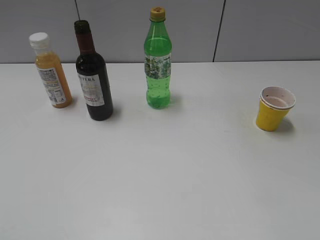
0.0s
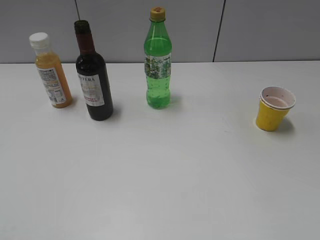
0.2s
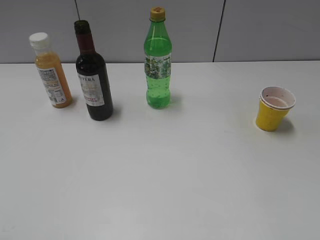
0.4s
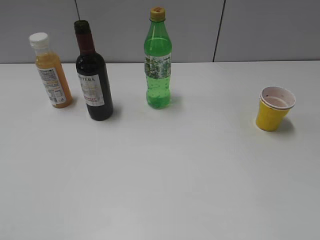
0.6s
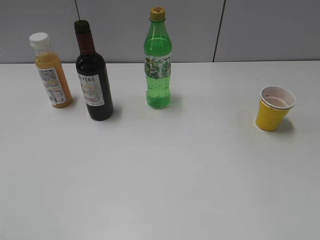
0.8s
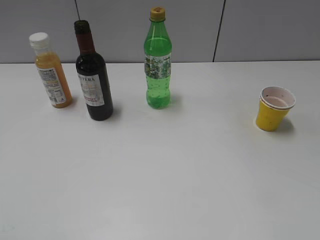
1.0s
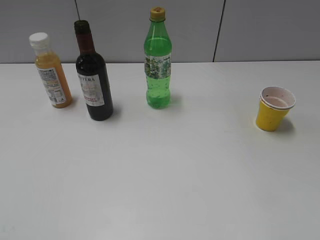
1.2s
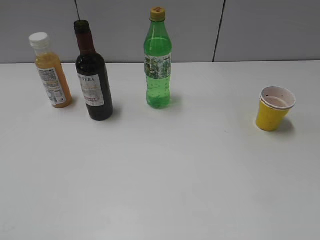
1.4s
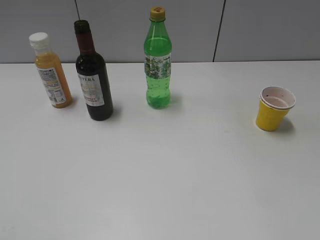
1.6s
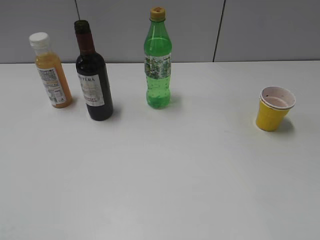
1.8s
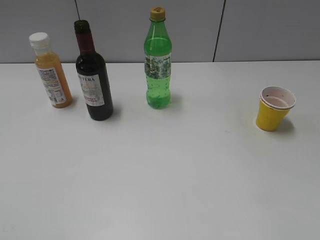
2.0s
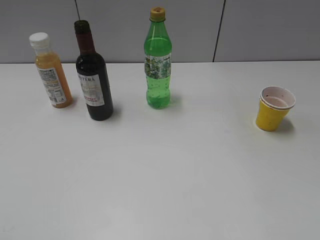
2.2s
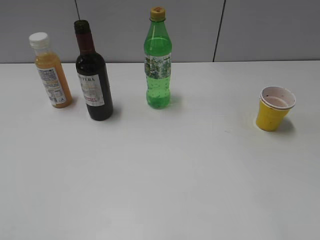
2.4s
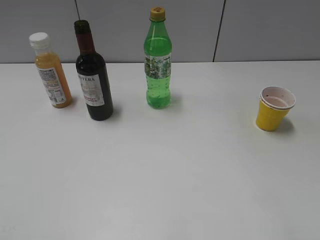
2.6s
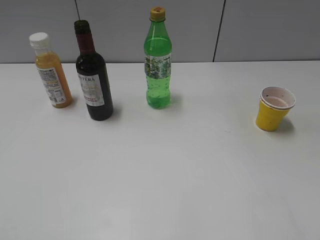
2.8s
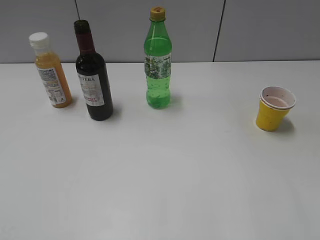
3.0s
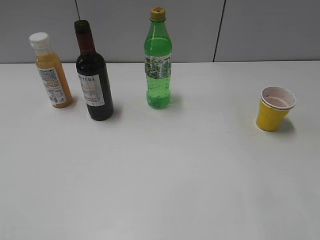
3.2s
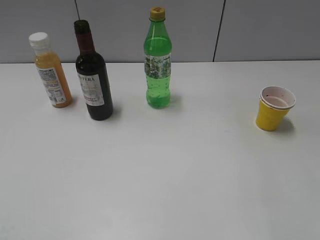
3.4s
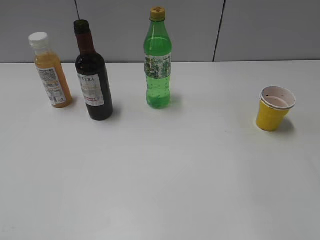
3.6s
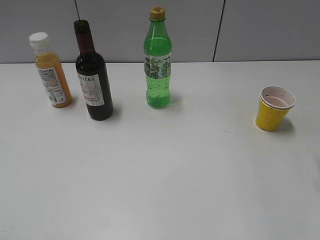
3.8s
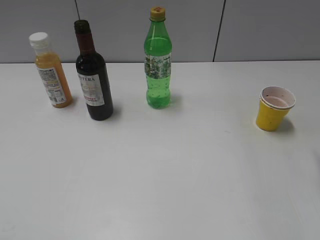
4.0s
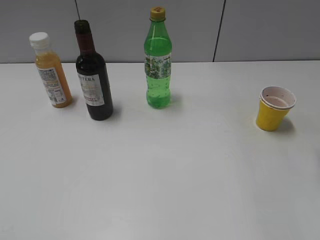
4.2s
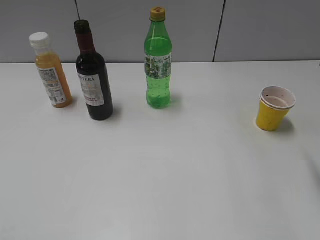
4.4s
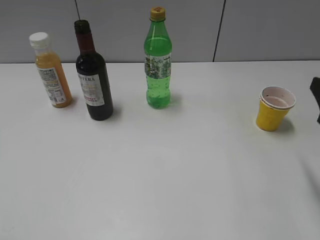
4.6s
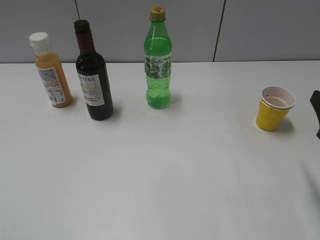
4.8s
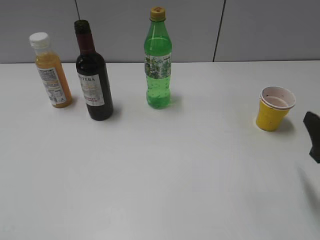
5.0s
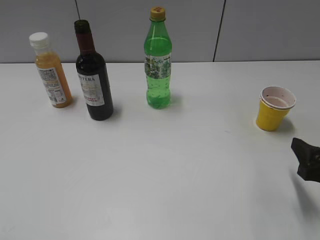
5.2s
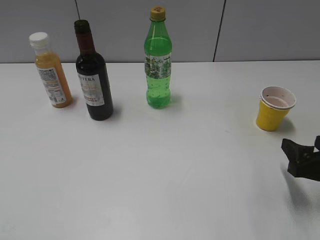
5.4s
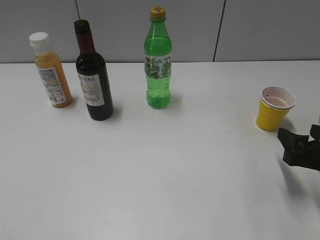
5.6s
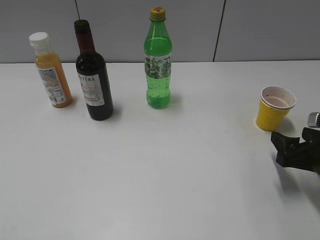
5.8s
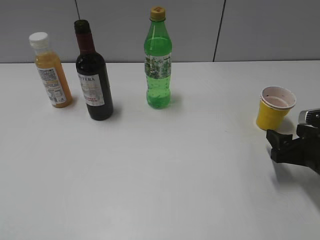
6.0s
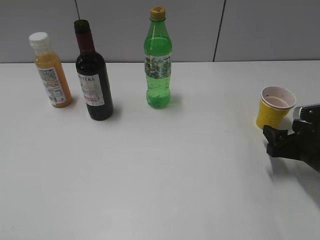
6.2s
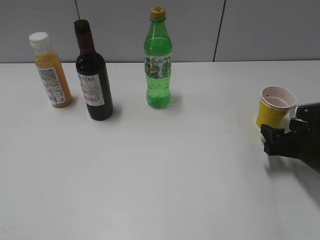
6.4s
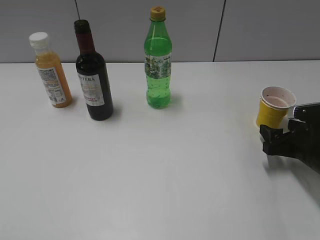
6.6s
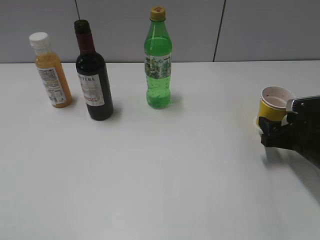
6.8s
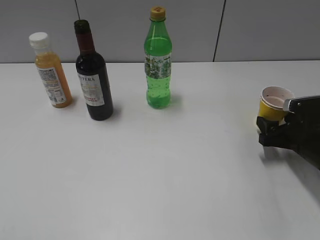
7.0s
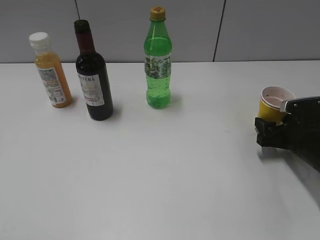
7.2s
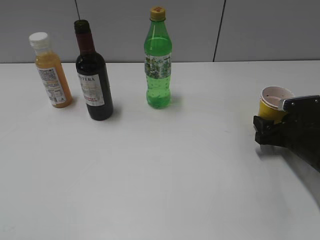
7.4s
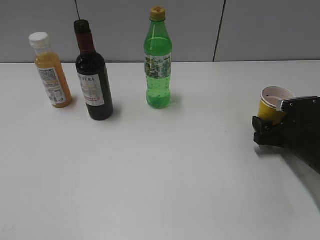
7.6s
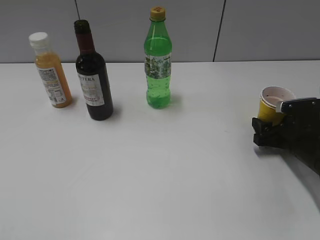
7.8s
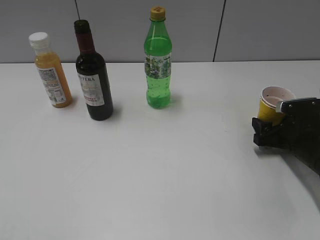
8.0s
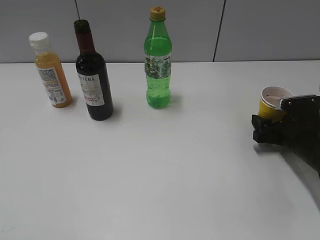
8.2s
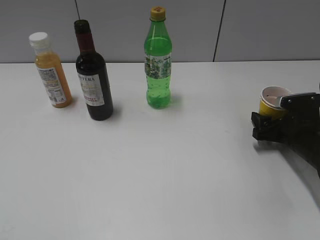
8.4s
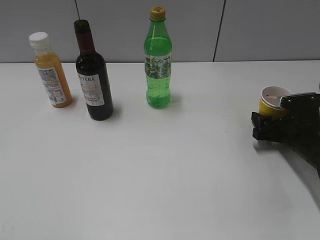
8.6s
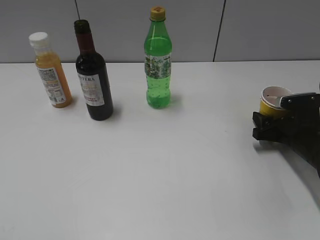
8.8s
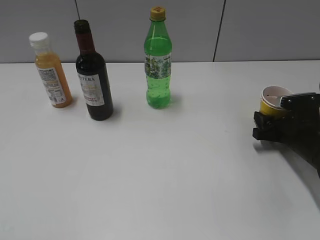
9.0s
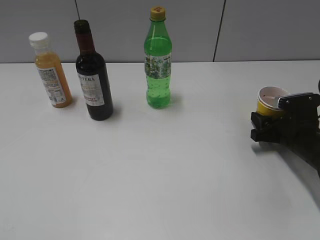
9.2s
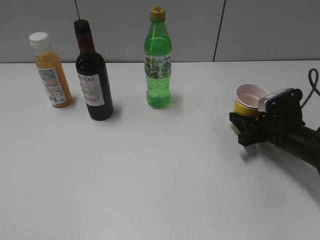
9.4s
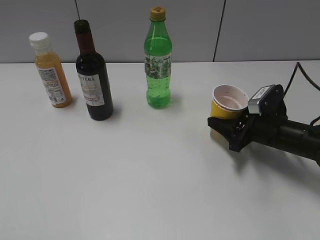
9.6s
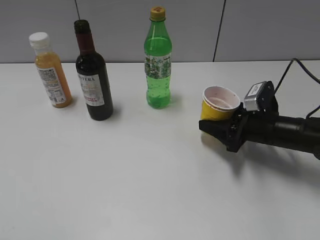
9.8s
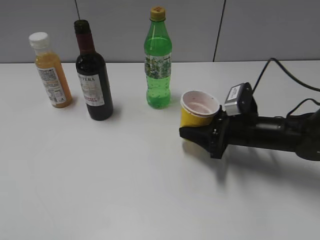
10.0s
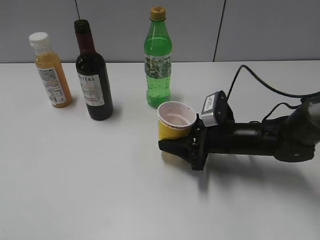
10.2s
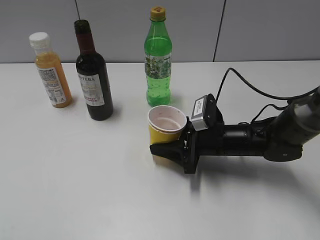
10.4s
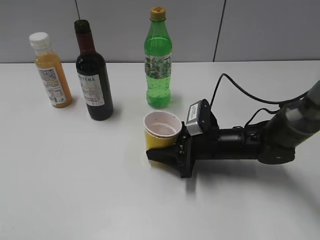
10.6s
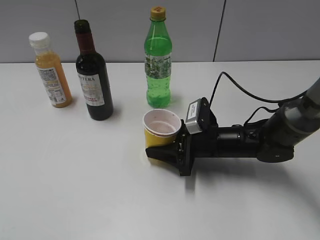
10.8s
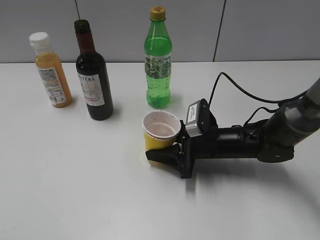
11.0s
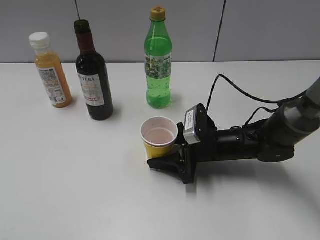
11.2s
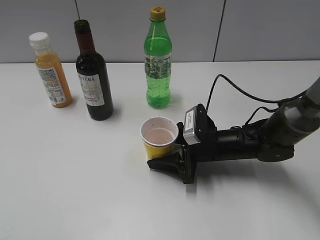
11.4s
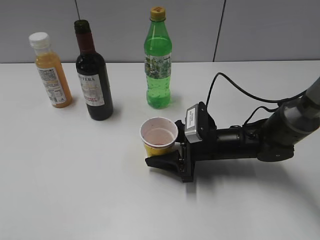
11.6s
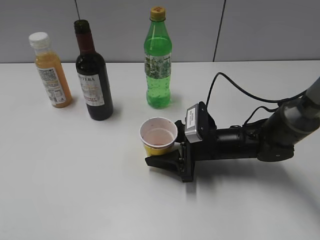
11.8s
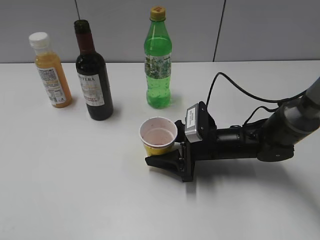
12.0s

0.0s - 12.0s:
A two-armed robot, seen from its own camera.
Step, 1.4s - 9.0s: Grasp the yellow paper cup with right gripper.
4.4s - 6.0s: The right gripper goes about 15 cm downward.
6.0s - 7.6s: The right gripper moves forward, approximately 5 cm.
7.6s - 9.0s: The right gripper closes its fingers.
9.0s - 10.4s: The right gripper goes roughly 15 cm to the left.
10.4s - 12.0s: The right gripper opens up.

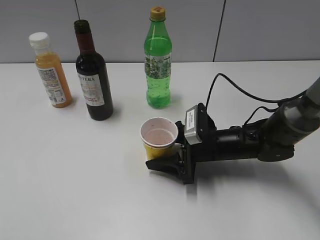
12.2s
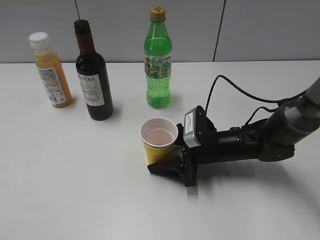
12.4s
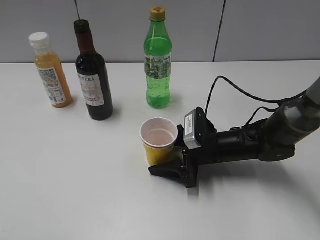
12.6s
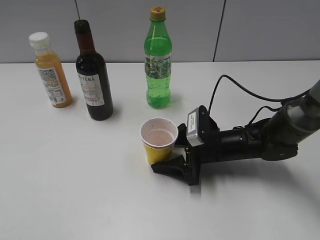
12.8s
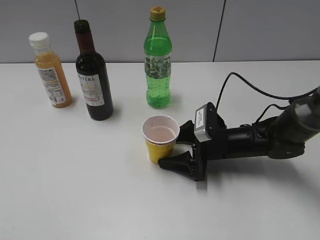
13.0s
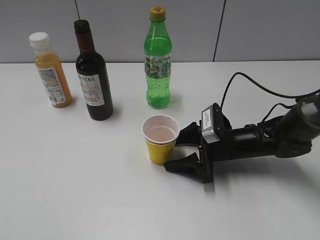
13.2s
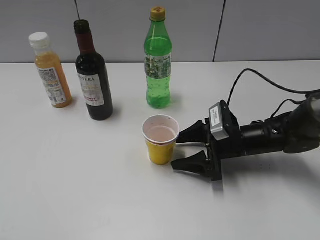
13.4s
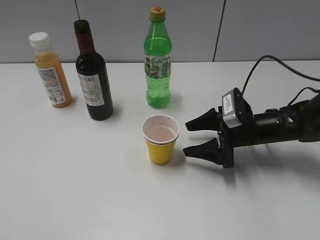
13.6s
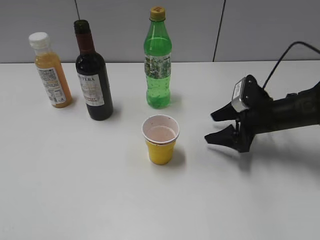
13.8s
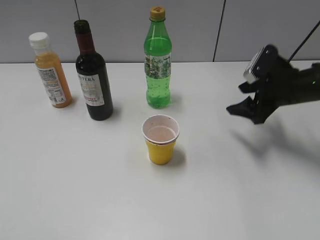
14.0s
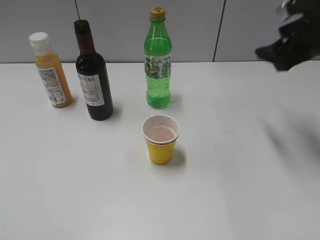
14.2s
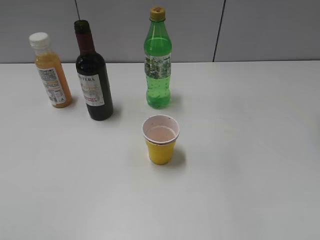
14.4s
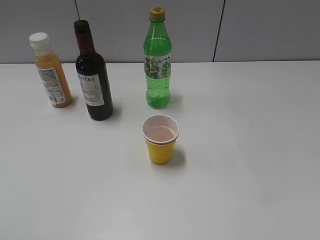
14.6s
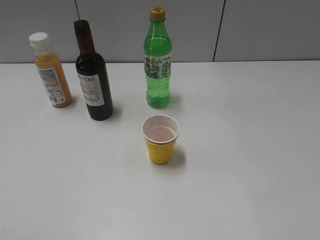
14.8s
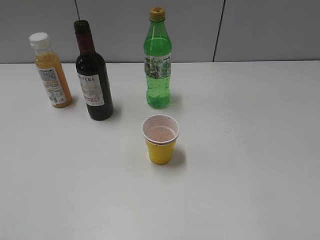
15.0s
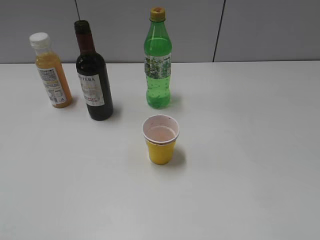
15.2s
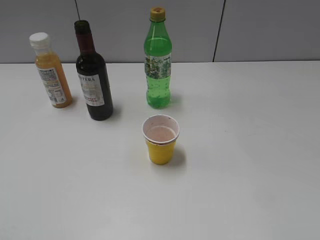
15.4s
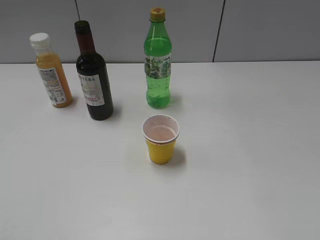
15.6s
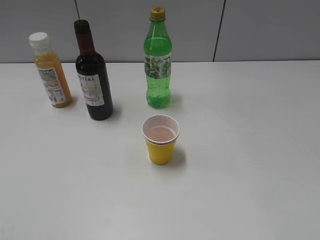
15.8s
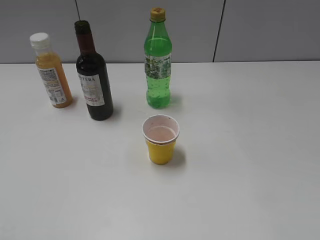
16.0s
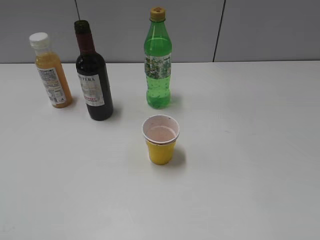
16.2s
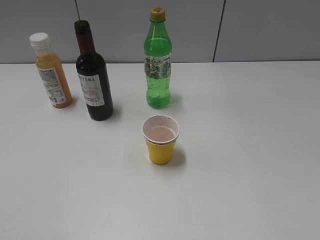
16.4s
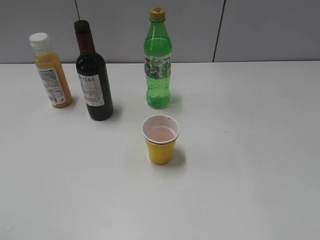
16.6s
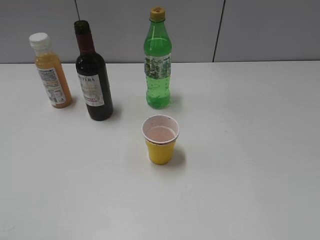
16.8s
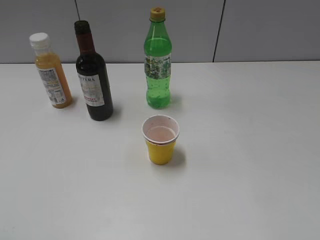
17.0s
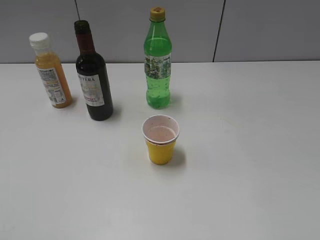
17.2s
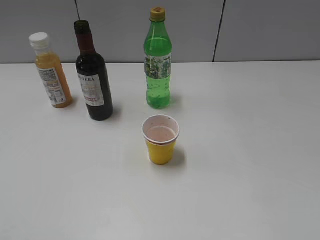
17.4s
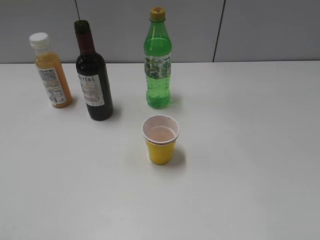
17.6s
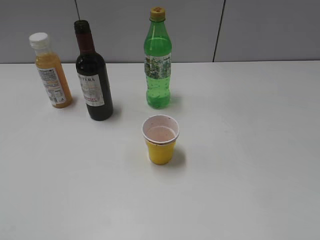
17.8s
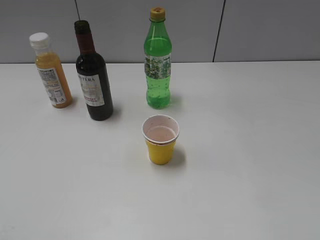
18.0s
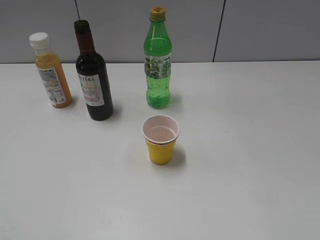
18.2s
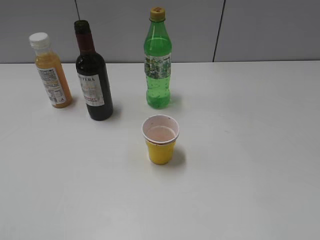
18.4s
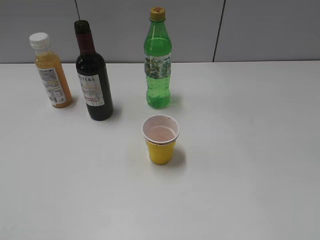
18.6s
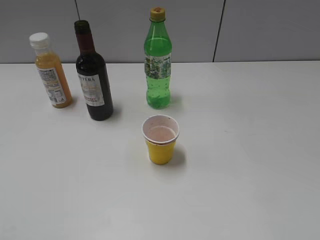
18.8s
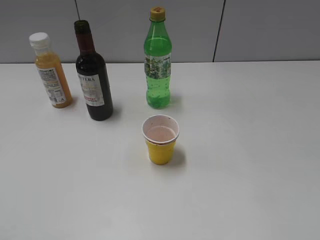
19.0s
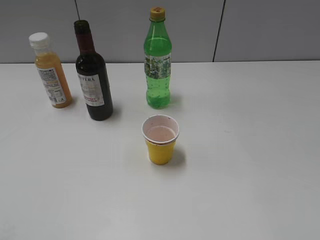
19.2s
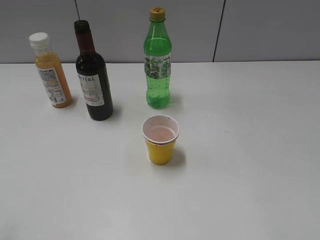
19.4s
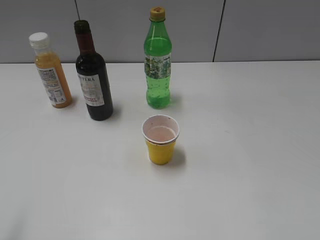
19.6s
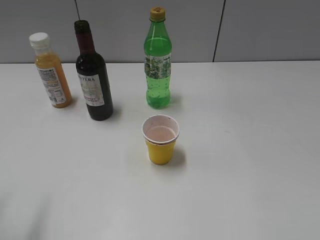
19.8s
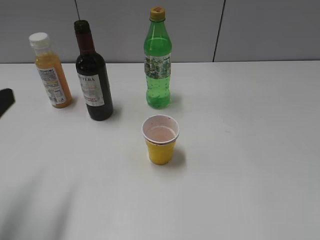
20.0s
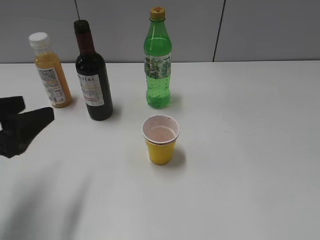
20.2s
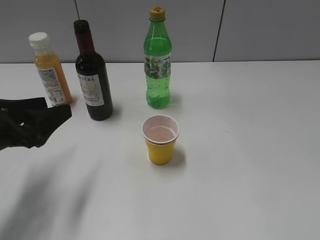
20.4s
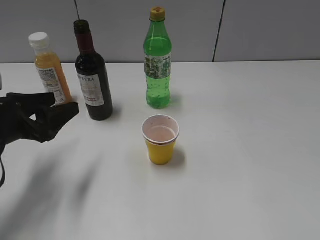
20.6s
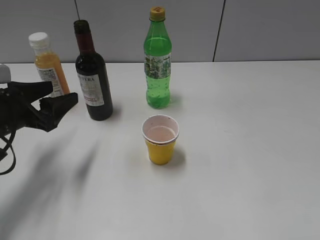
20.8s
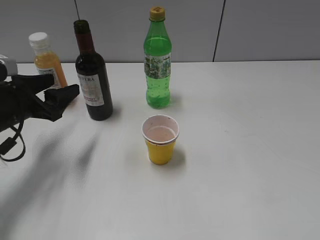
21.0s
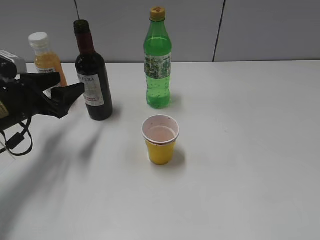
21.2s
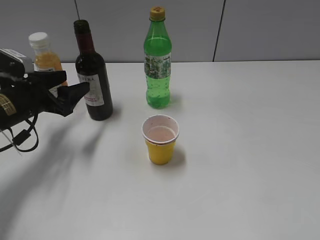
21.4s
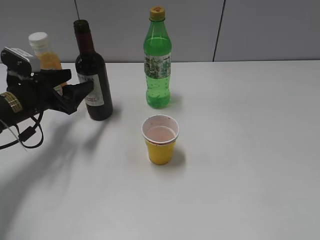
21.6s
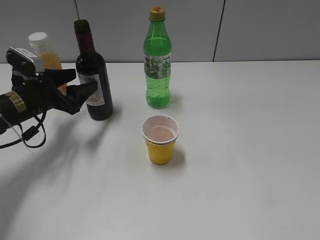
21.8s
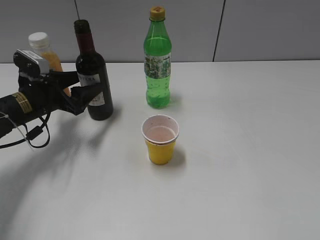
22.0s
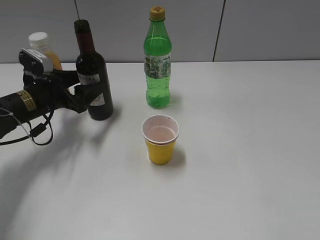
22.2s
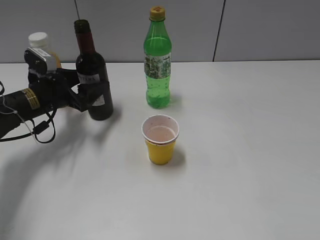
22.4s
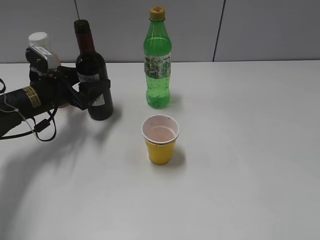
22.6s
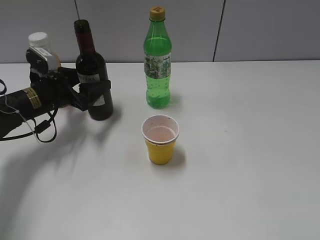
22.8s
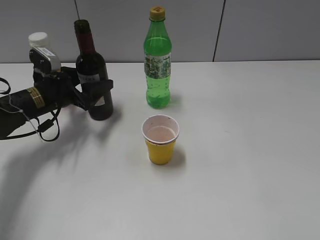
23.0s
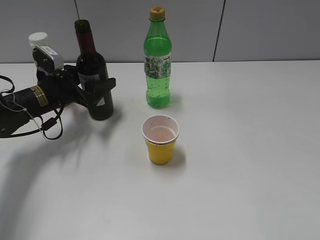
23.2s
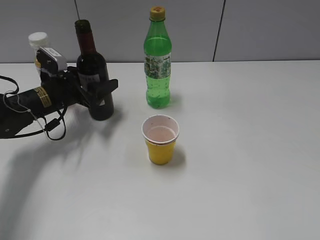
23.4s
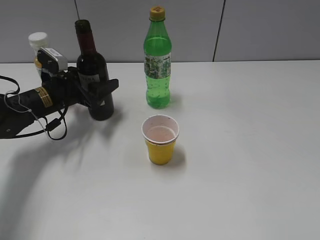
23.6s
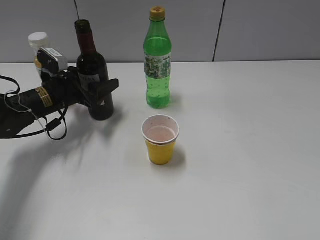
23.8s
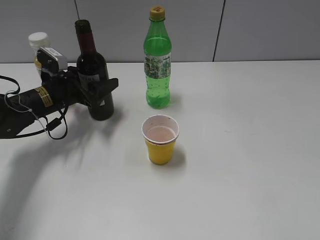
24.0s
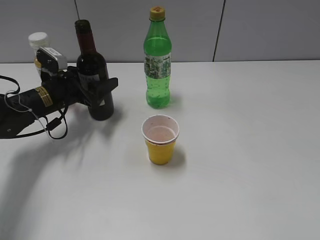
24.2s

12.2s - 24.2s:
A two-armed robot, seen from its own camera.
12.2s - 13.8s: The right gripper moves to the right, roughly 10 cm.
13.8s - 15.2s: The right gripper heads upward and backward, covering about 40 cm.
19.8s - 21.2s: The left gripper shifts some 25 cm forward and downward.
21.2s - 22.6s: The left gripper shifts approximately 5 cm forward.
22.6s - 24.2s: The grippers move only a little.
